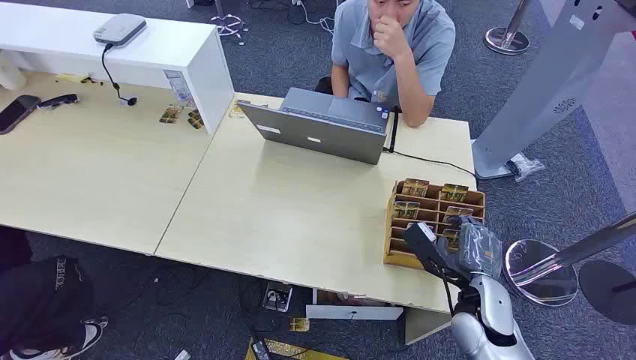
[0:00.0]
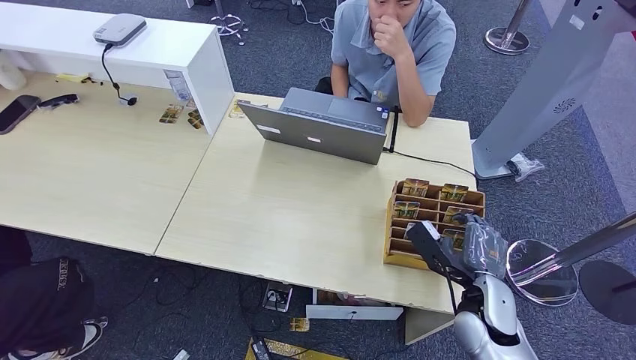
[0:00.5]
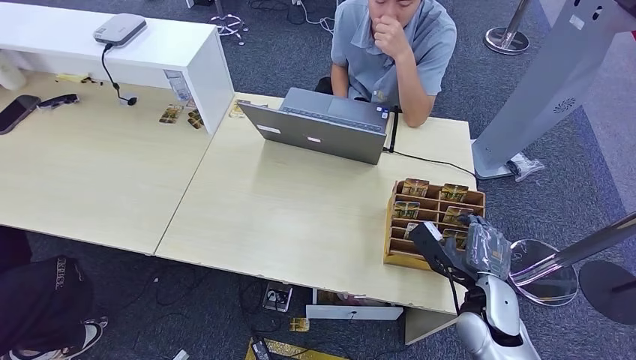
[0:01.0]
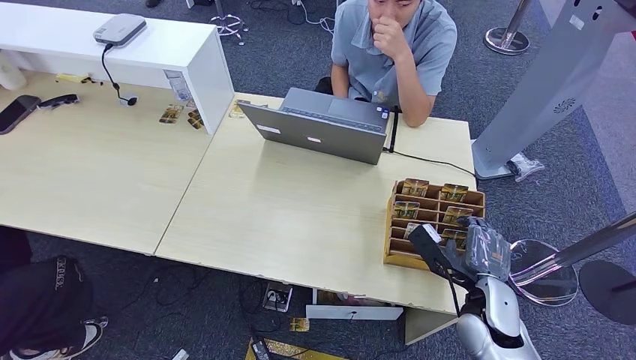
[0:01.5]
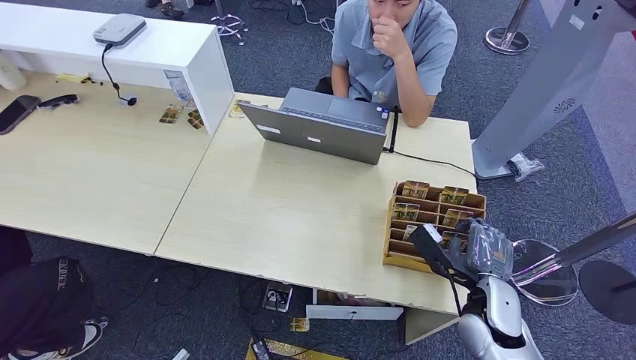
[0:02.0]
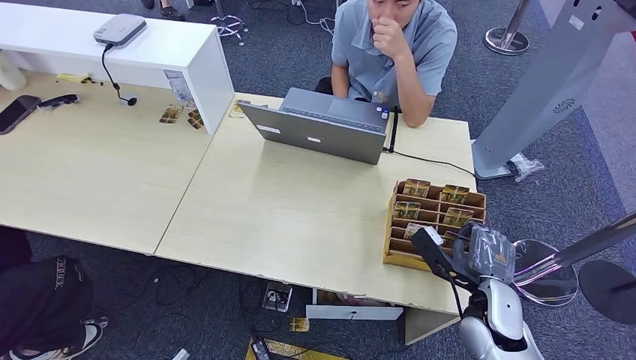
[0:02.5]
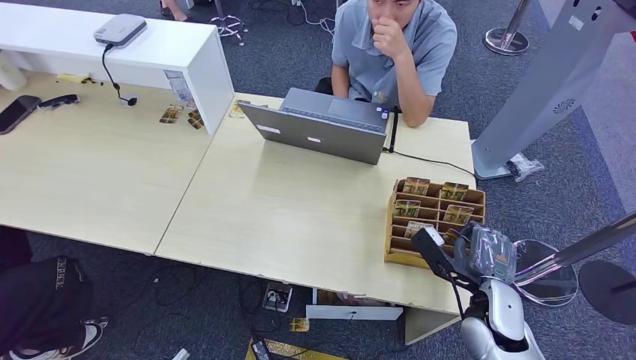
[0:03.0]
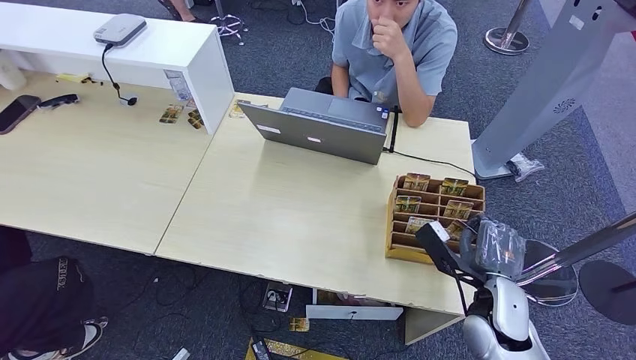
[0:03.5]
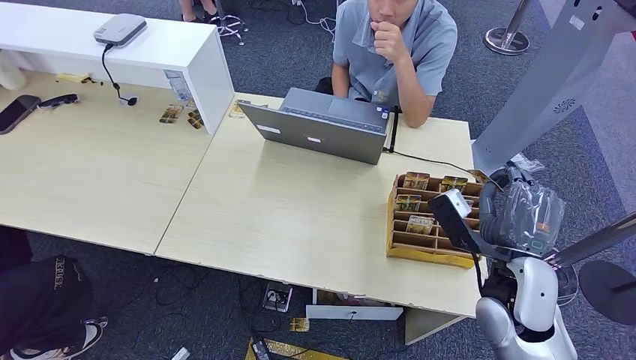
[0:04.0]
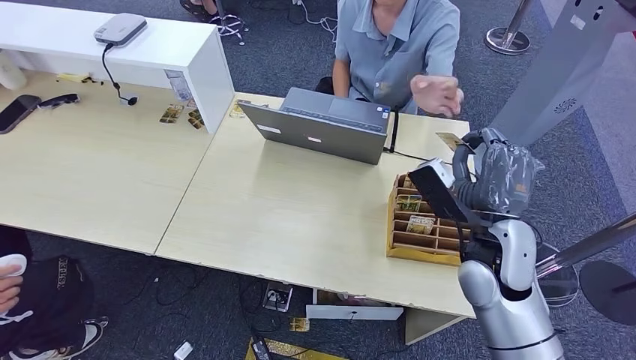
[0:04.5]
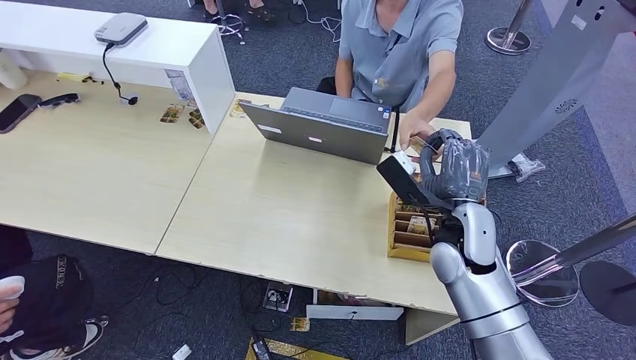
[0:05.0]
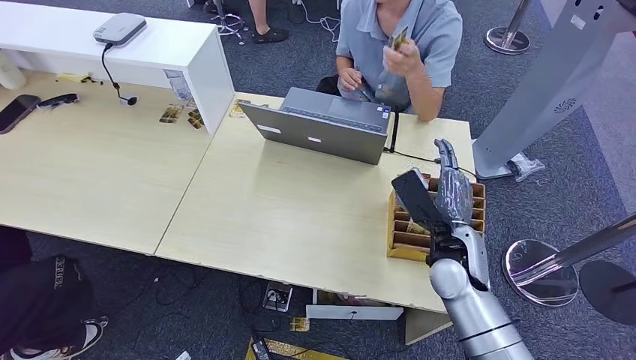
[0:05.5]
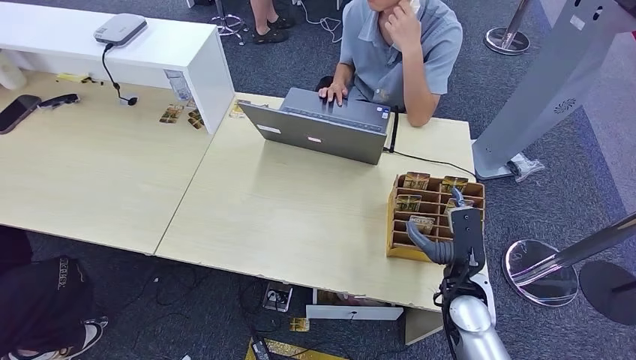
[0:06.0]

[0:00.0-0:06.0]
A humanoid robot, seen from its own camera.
Step, 0:00.0 to 0:04.0: Pick up the room card from the card holder.
Step, 0:04.5 to 0:06.0: Hand the room card to the target.
0:02.0 to 0:04.0: The right hand travels upward by roughly 10 cm.
0:04.0 to 0:06.0: The right hand shifts roughly 10 cm downward.
